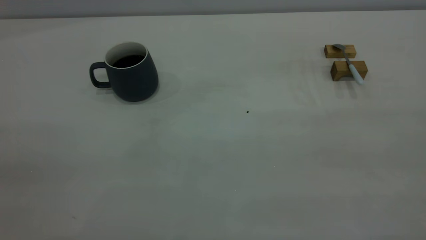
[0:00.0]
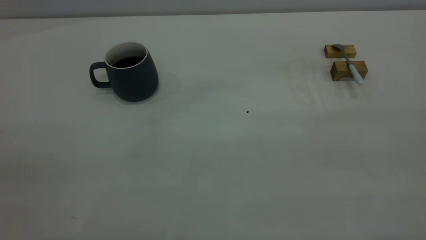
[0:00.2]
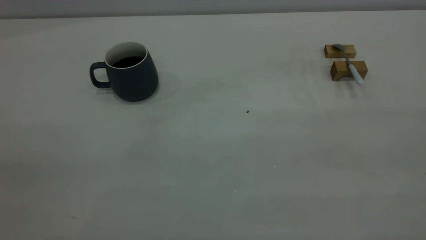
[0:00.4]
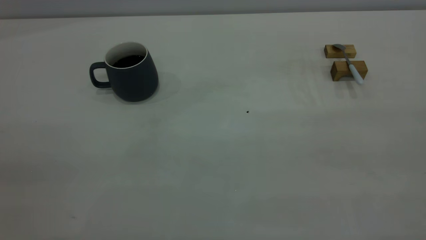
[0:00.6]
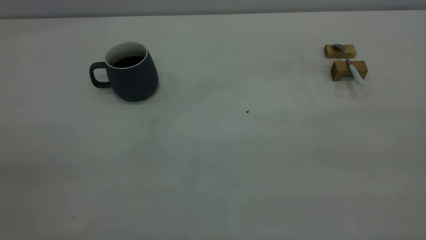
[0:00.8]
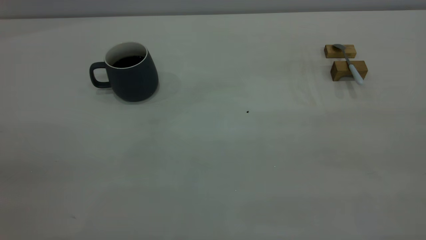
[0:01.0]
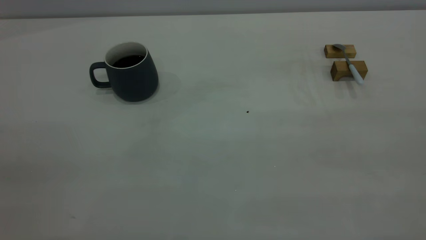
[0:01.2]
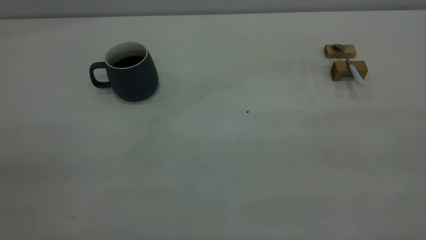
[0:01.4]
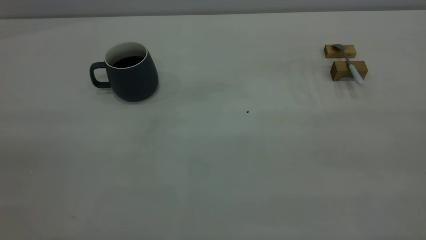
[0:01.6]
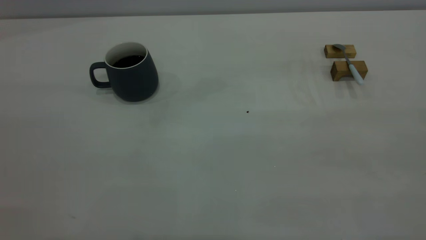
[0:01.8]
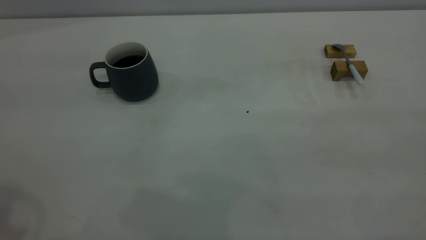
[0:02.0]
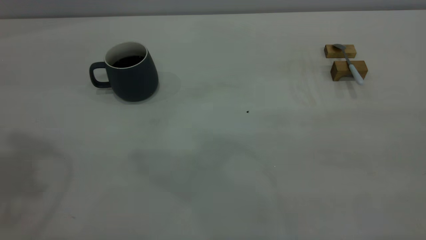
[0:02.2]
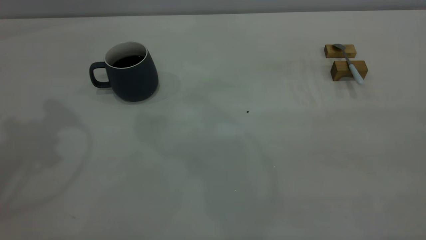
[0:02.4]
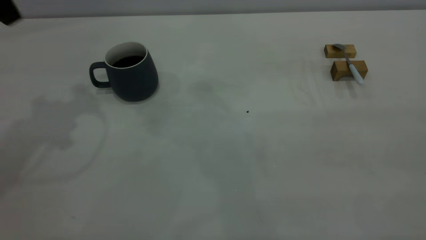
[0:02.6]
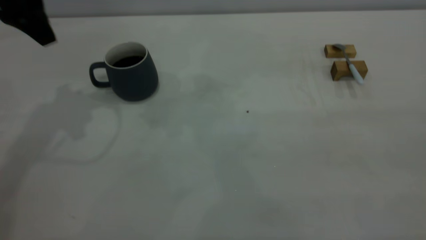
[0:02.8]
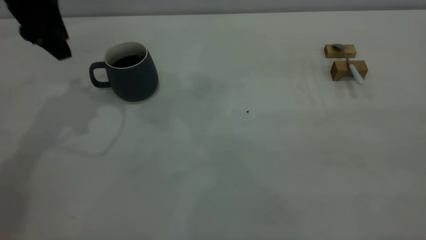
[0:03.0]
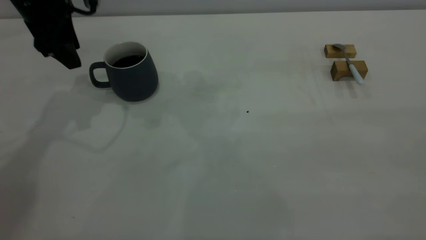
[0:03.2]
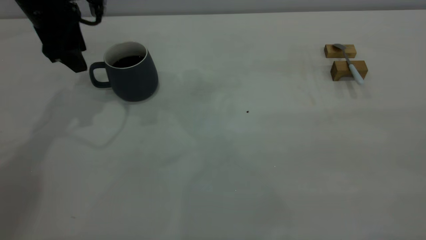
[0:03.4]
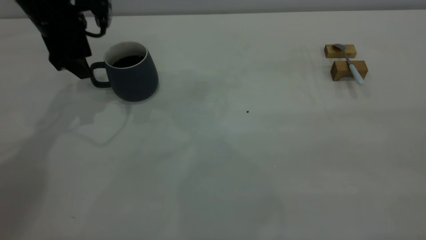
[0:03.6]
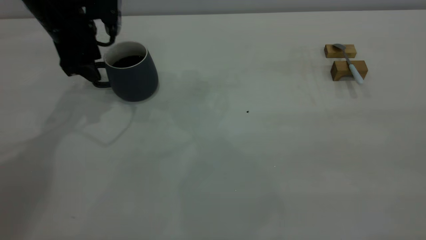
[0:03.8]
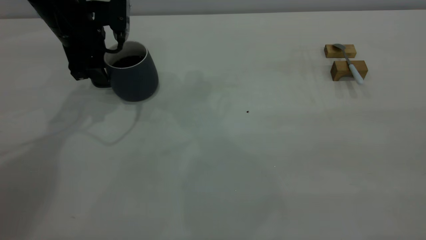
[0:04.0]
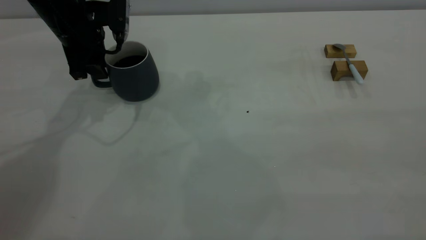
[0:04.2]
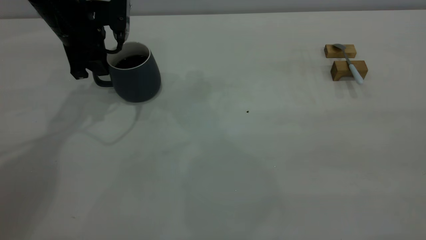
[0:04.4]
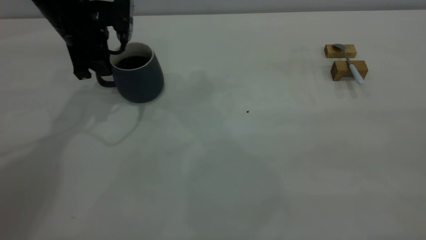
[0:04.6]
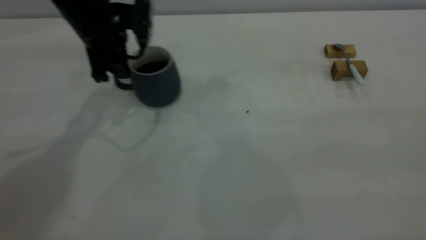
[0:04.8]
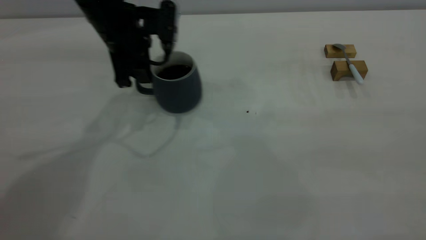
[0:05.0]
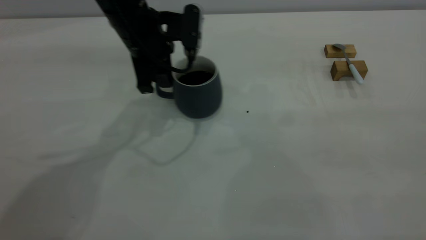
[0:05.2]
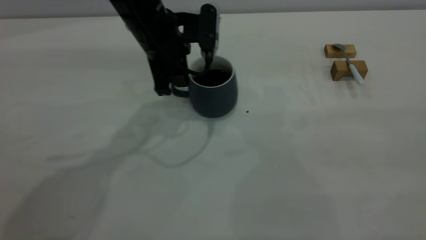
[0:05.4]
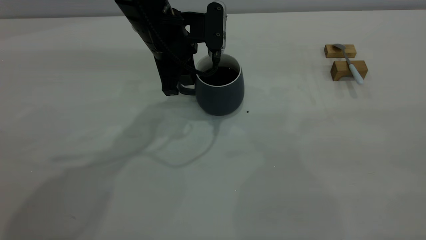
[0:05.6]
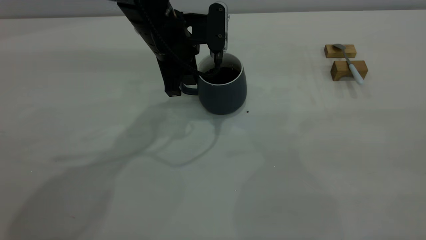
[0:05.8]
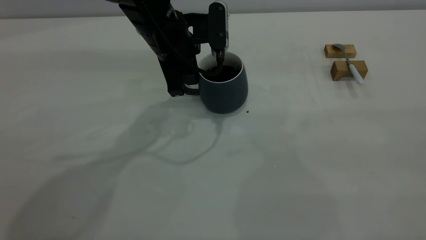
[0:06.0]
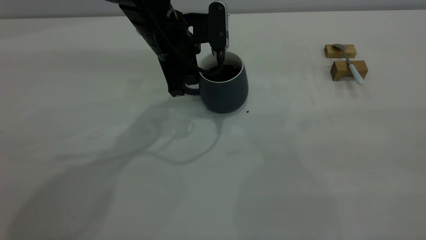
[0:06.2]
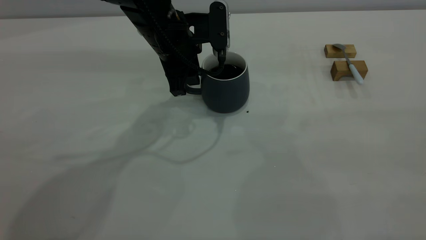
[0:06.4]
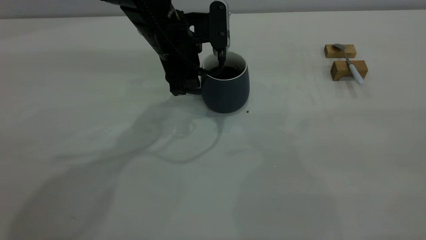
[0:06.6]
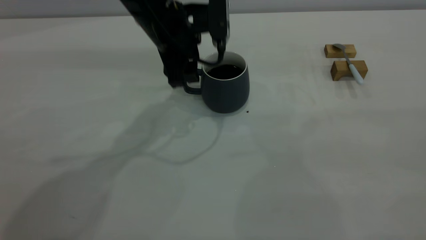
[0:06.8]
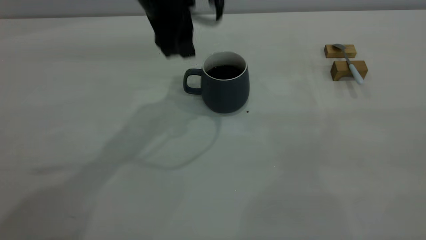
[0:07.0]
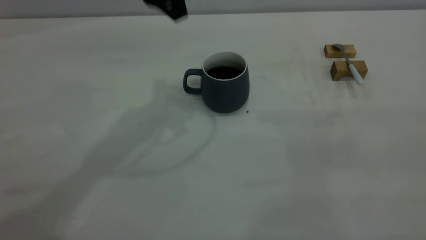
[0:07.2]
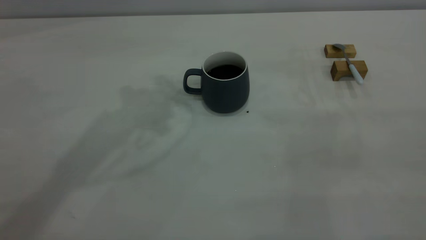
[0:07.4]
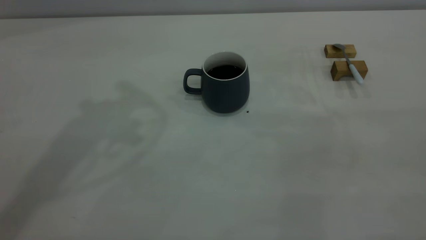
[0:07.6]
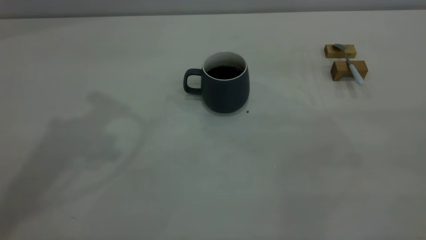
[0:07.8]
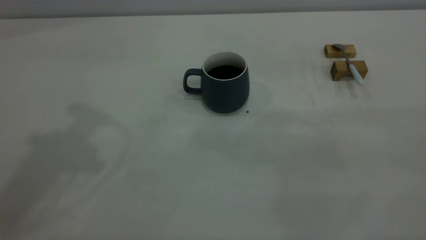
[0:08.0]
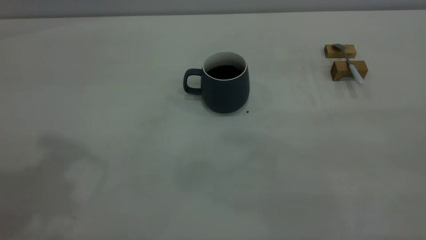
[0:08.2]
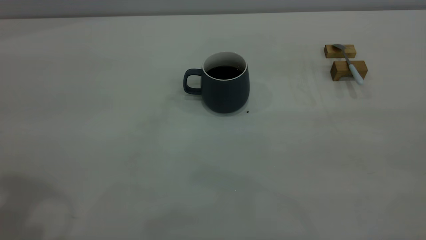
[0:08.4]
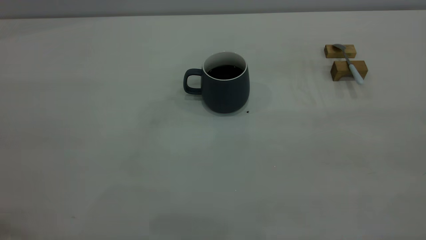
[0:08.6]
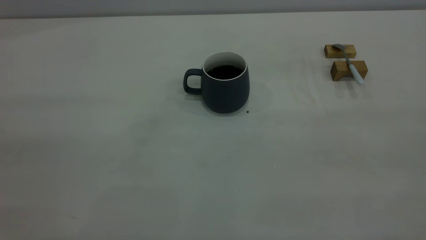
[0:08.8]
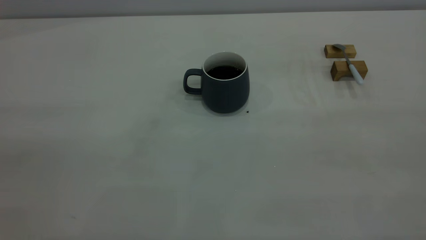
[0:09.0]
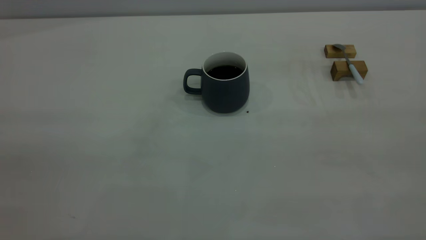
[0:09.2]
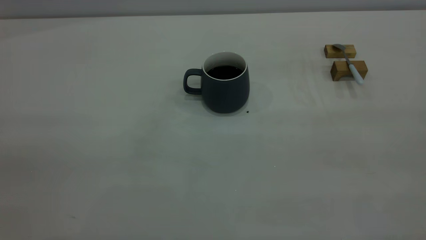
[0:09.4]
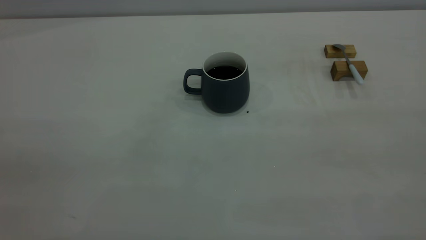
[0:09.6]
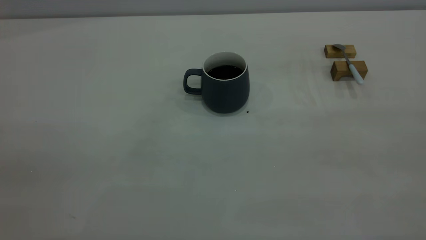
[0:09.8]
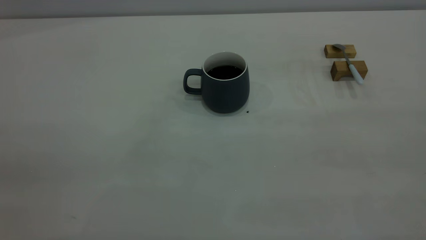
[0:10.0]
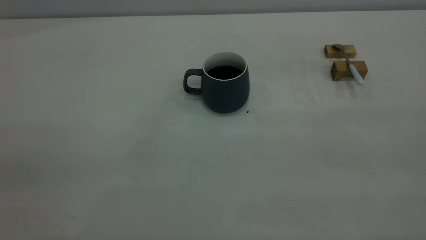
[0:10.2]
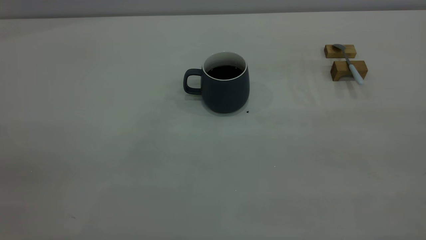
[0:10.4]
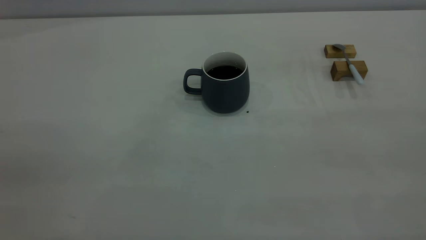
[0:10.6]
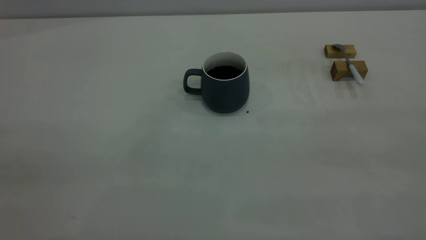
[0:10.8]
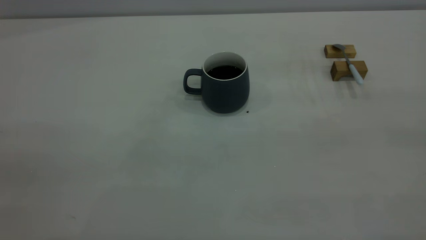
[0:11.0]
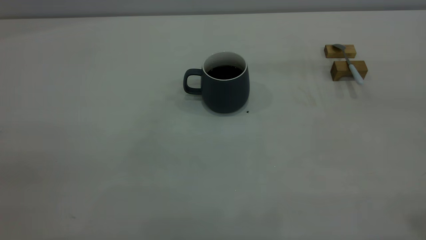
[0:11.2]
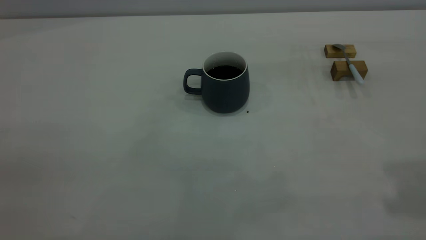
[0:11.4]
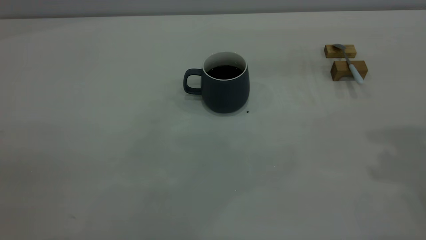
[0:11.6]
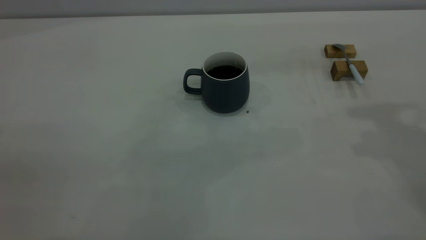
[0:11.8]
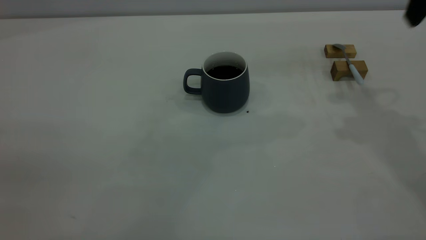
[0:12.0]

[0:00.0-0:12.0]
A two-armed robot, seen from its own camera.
Step, 0:00.0 to 0:07.0: Move the cup with coffee to the center of view.
0:01.6 to 0:03.0: The left gripper heads forward, covering approximately 40 cm, and opens up.
0:03.0 to 0:04.4: The left gripper shifts about 10 cm downward, and closes up.
0:04.4 to 0:06.0: The left gripper moves to the right, some 15 cm.
0:06.0 to 0:07.6: The left gripper shifts about 25 cm upward and to the left, and opens its fingers.

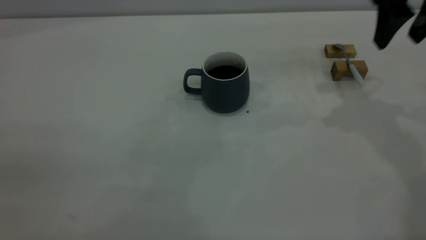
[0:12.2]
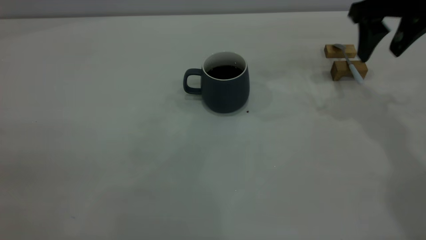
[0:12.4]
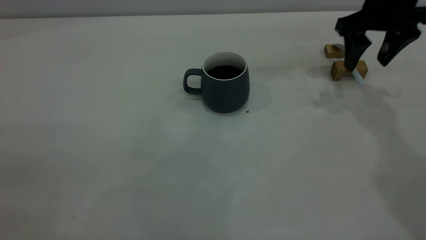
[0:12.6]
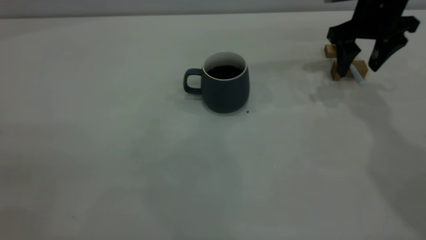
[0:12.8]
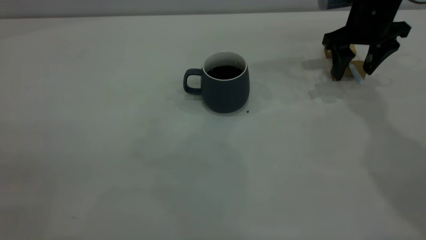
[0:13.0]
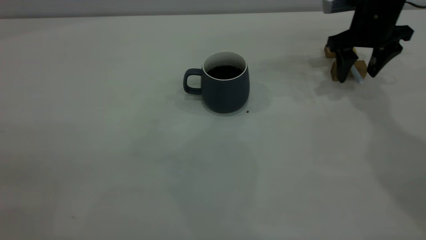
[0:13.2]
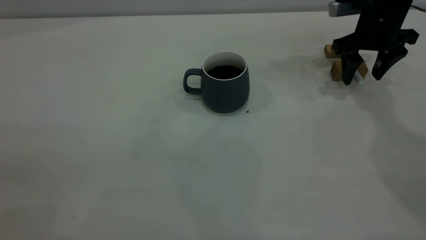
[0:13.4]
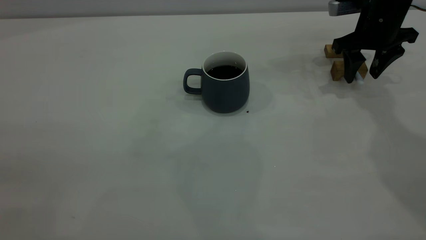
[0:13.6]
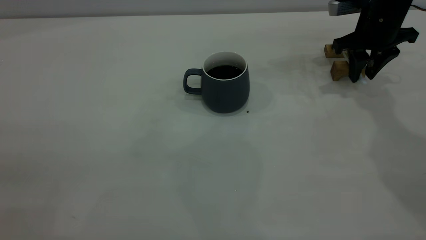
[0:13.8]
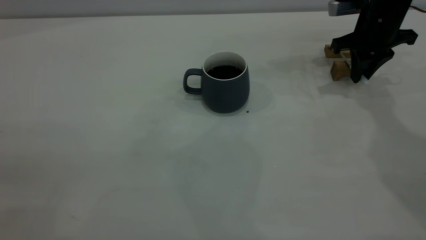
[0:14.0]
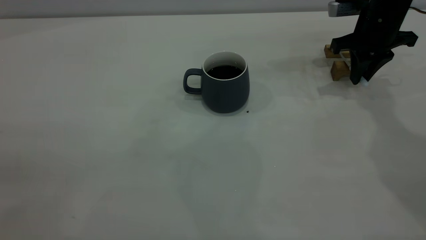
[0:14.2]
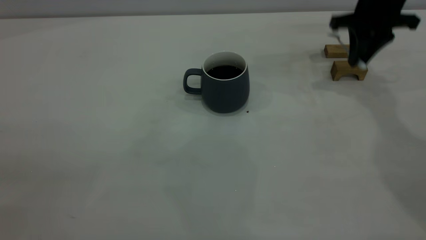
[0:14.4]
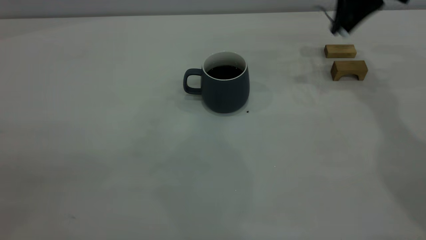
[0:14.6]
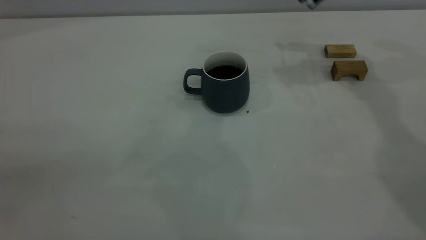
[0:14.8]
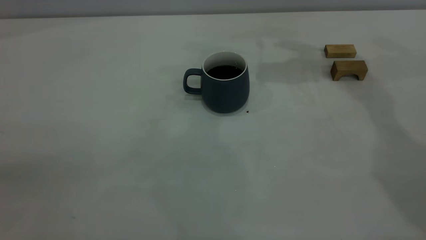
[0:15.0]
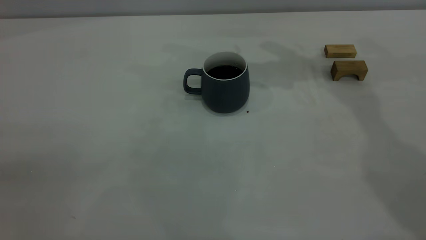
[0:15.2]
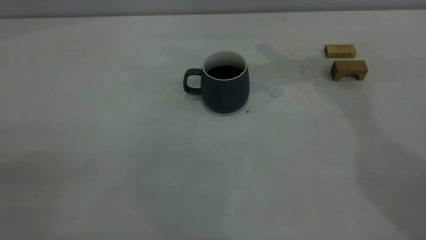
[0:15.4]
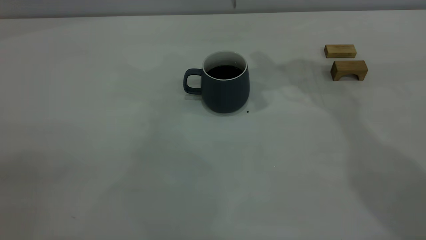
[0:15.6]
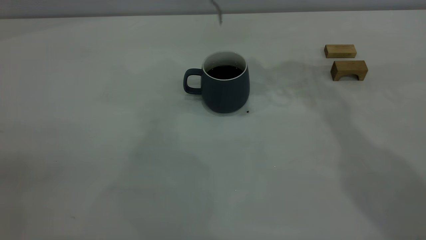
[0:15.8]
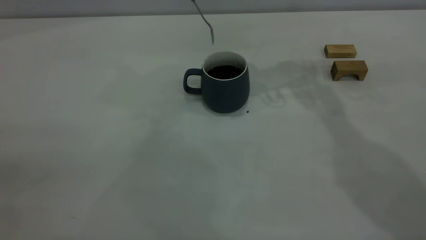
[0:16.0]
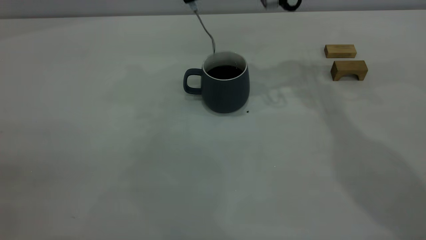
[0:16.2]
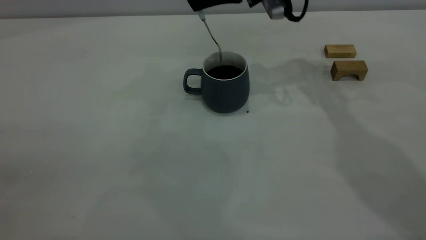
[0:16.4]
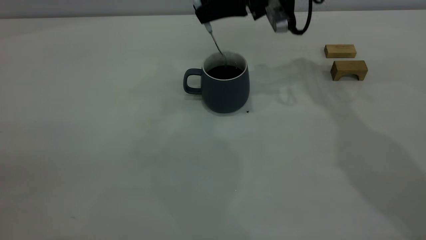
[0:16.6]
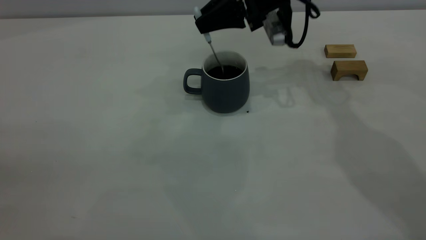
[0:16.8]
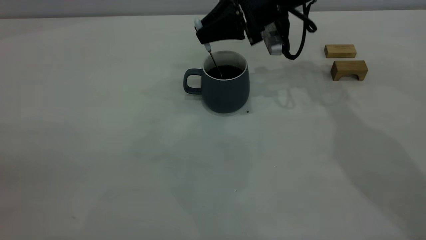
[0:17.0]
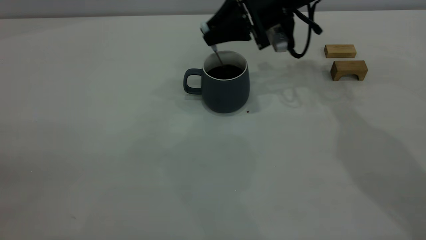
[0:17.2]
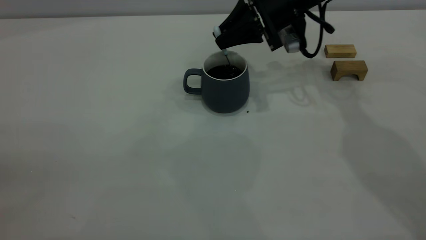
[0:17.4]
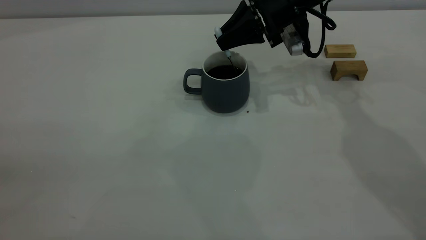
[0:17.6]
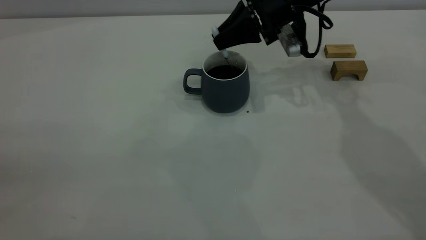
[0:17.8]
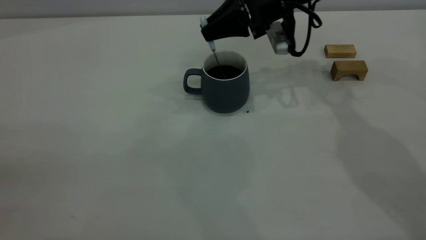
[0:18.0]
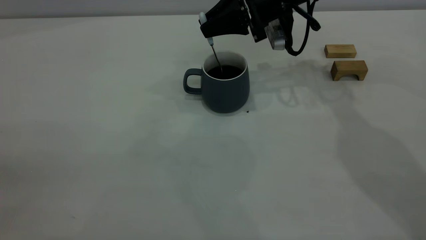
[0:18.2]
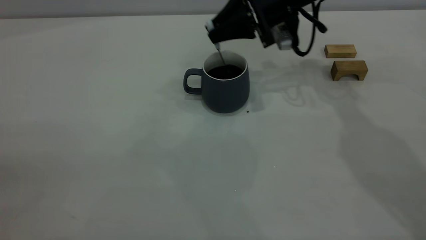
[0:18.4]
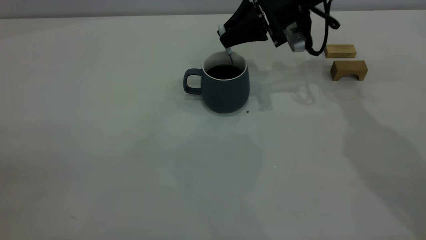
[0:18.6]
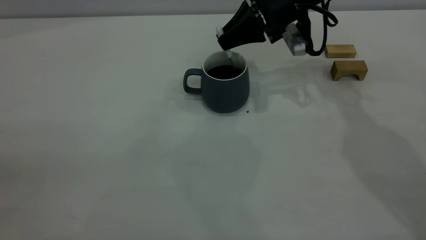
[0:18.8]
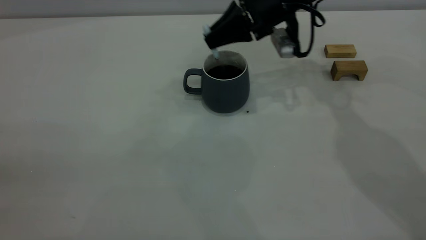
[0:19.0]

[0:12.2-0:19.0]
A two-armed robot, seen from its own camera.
Step, 0:12.2 to 0:14.4: Pick up the spoon.
0:12.2 to 0:13.6: The right gripper is displaced downward and forward by approximately 15 cm.
0:13.6 to 0:15.0: The right gripper goes some 15 cm upward and to the left, and closes up.
0:16.2 to 0:17.6: The right gripper goes approximately 10 cm downward.
0:17.6 to 0:19.0: There are only small adjustments of the grippers.
